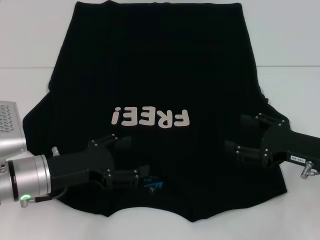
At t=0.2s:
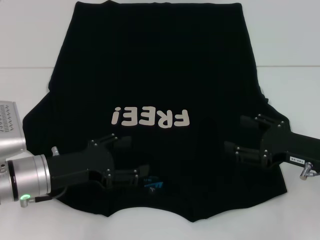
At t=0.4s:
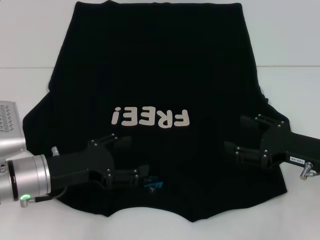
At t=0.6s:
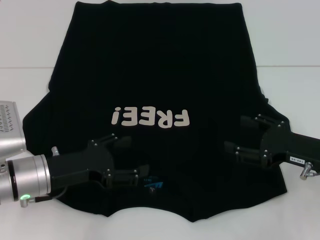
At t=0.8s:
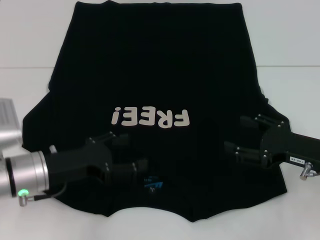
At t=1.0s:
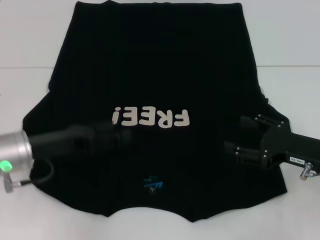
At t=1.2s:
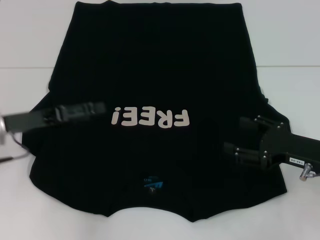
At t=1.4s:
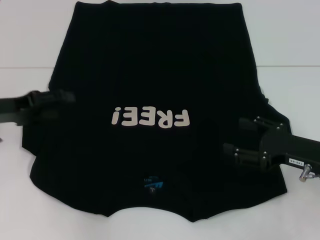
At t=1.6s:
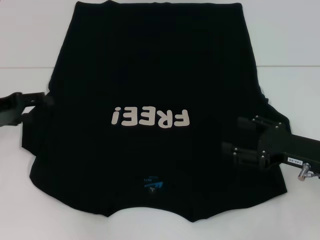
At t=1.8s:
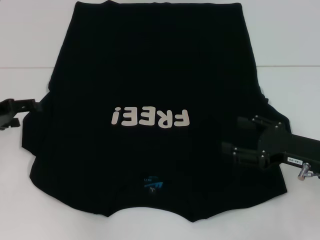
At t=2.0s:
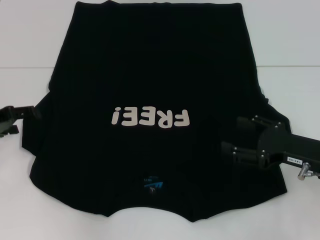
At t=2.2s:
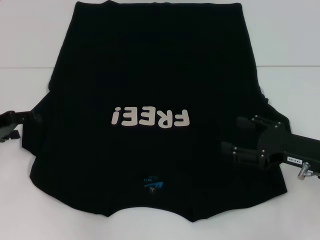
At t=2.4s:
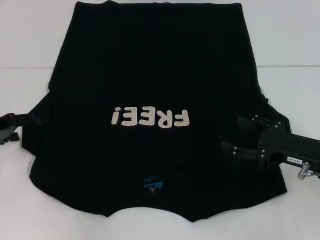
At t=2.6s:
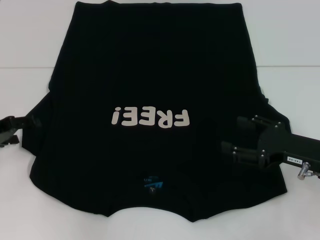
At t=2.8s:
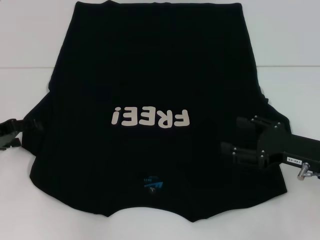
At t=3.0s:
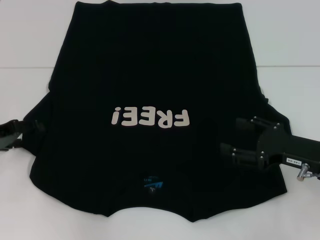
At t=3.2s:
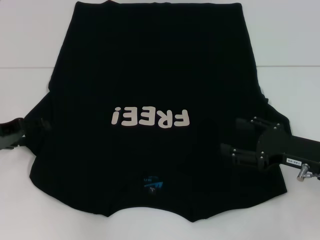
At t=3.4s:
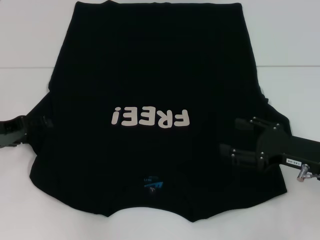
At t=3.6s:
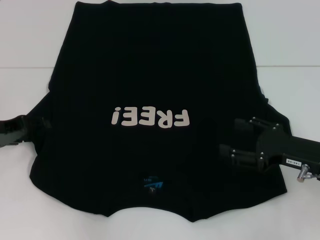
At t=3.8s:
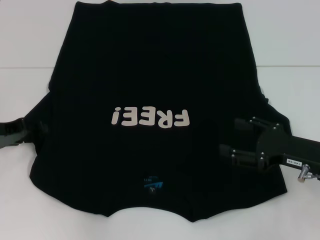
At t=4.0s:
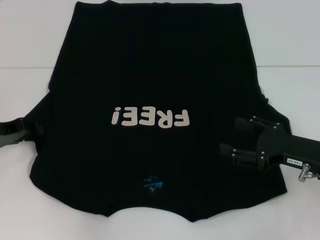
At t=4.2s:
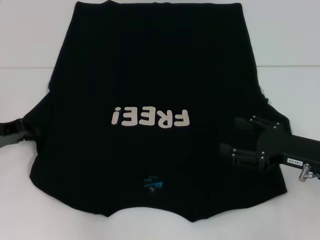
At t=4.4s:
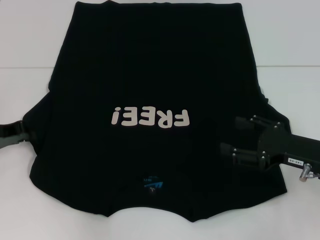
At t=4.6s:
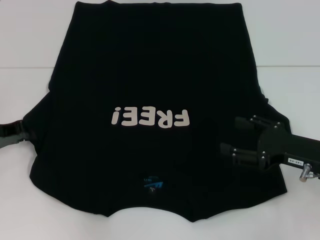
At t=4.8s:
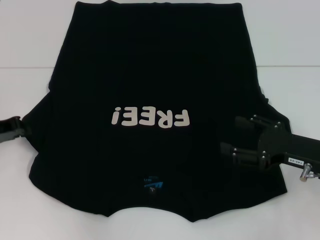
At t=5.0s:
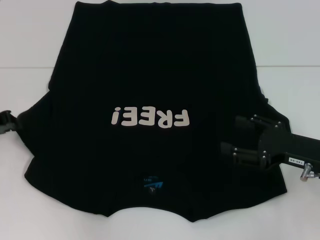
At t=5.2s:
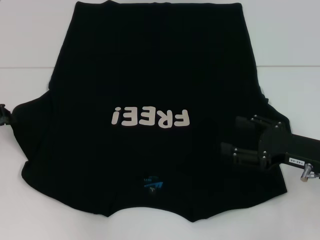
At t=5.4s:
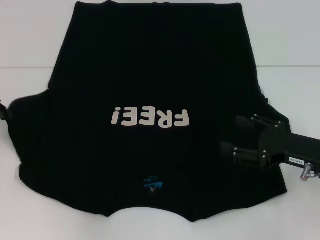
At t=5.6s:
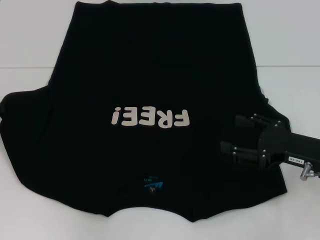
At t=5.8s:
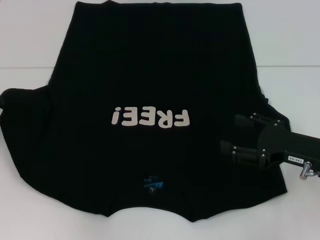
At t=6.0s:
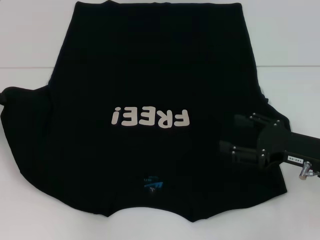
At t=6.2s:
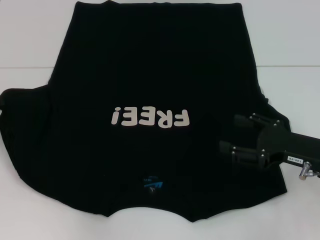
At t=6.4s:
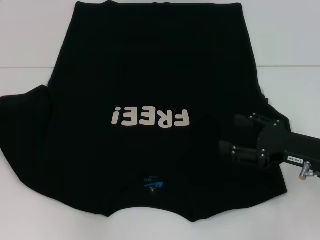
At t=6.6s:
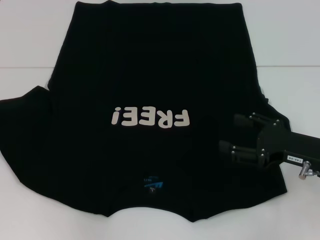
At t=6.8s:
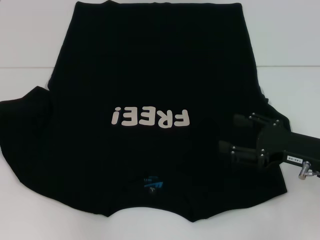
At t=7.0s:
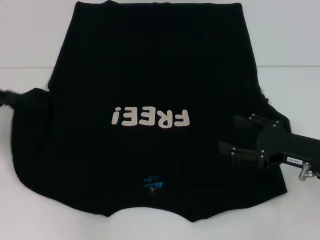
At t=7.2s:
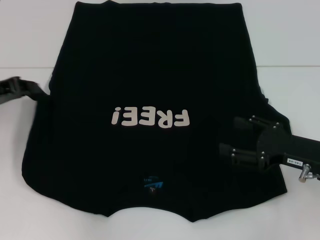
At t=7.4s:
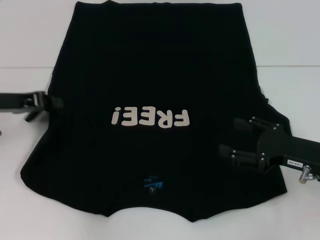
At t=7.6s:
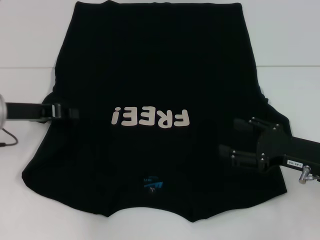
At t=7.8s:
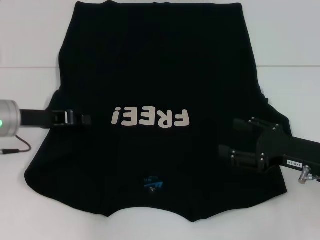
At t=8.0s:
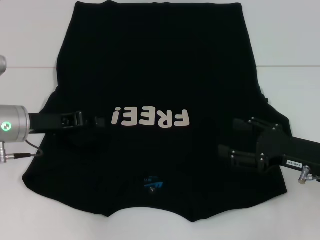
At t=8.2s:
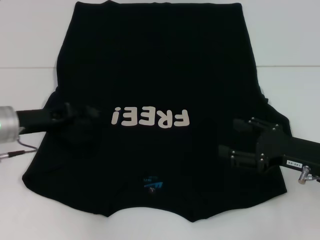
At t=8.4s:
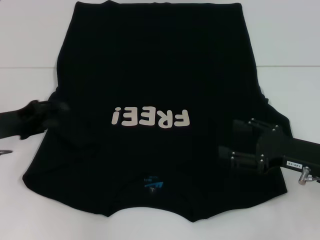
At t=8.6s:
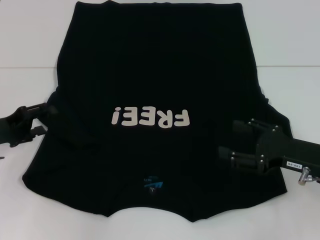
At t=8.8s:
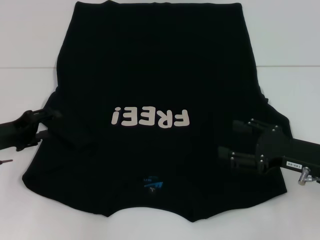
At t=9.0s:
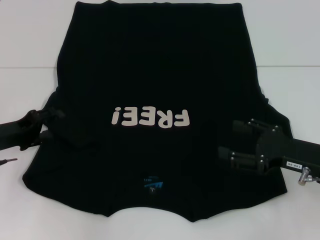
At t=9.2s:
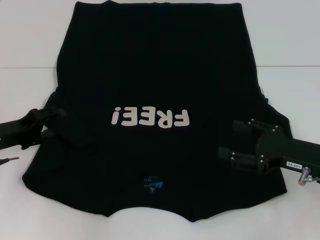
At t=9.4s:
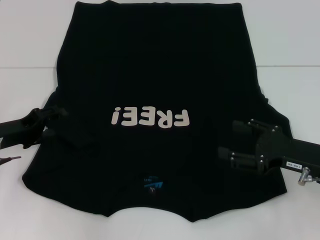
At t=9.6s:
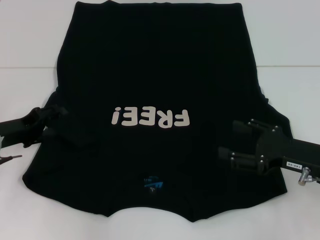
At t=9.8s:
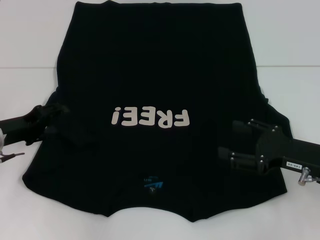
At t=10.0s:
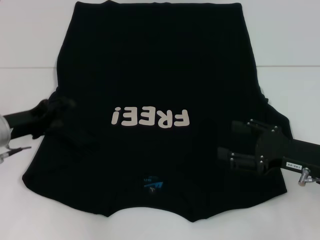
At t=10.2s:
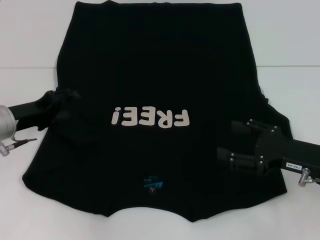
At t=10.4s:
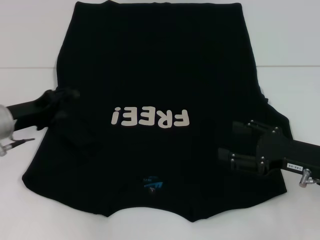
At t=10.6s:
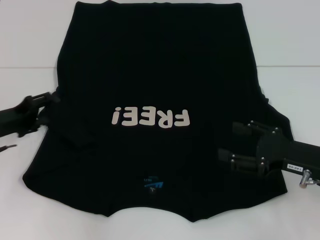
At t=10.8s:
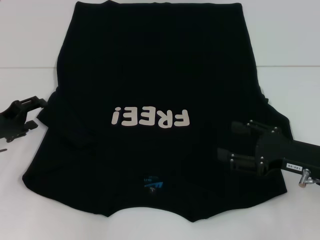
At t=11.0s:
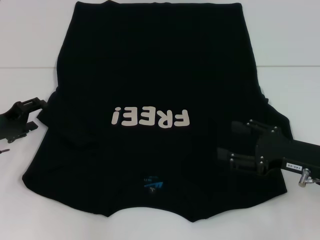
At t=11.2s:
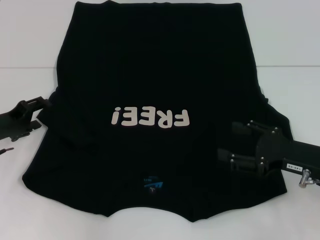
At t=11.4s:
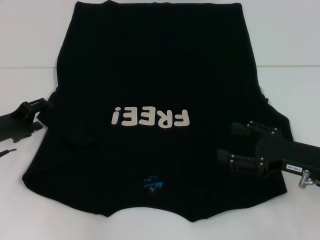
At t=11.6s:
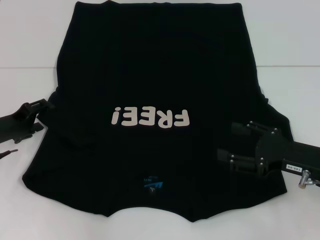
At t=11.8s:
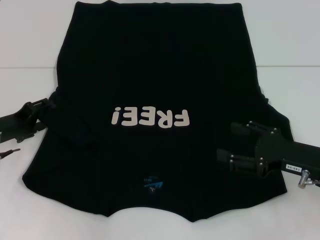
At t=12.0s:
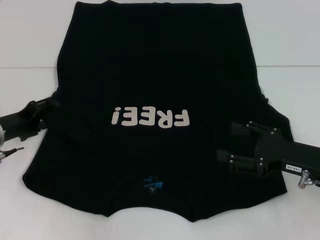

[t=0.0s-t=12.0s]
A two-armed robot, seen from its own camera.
t=0.0s to t=1.6s: The left gripper is displaced to the left, forward and upward by approximately 15 cm.
t=1.6s to t=3.0s: There are only small adjustments of the grippers.
t=3.0s to t=4.4s: The left gripper closes up.
t=4.4s to t=6.0s: The left gripper ends up some 5 cm from where it was.
t=6.0s to t=7.6s: The left gripper travels to the right by approximately 10 cm.
t=7.6s to t=9.0s: The left gripper shifts approximately 5 cm downward, and opens up.
t=9.0s to t=12.0s: The grippers move only a little.

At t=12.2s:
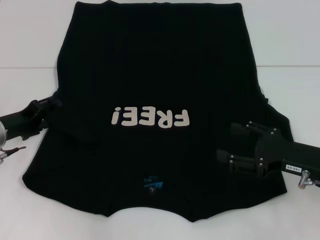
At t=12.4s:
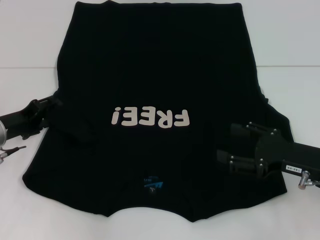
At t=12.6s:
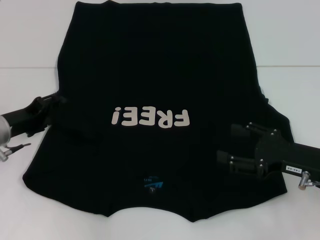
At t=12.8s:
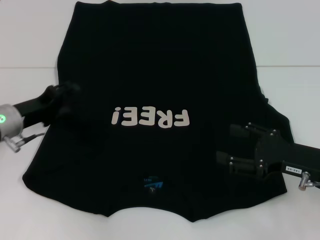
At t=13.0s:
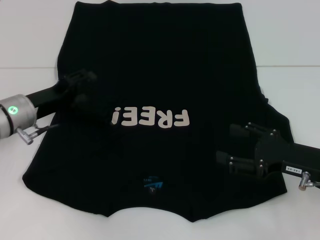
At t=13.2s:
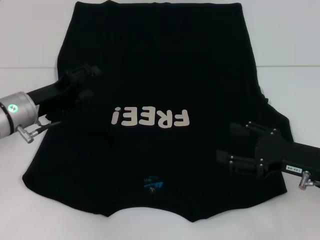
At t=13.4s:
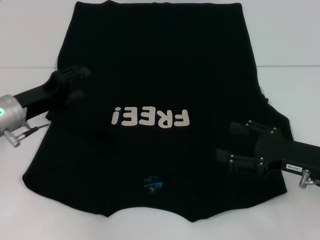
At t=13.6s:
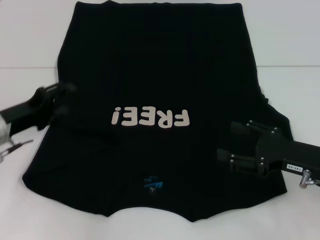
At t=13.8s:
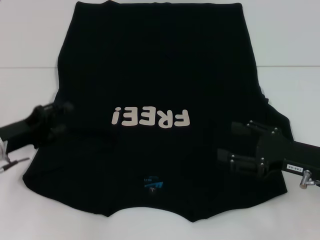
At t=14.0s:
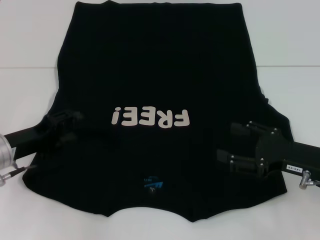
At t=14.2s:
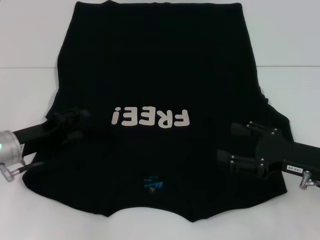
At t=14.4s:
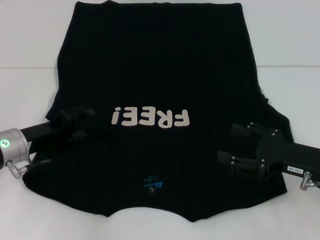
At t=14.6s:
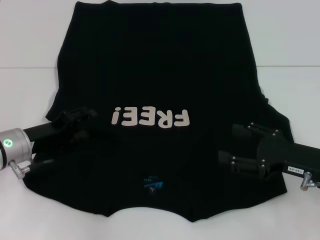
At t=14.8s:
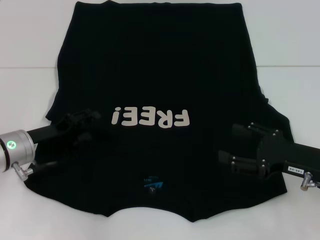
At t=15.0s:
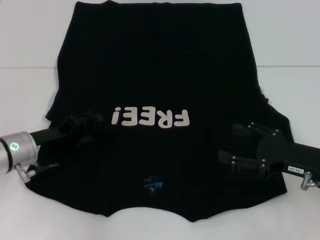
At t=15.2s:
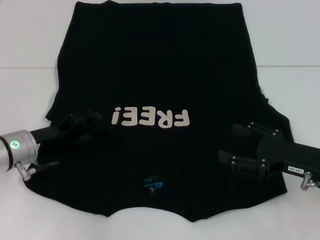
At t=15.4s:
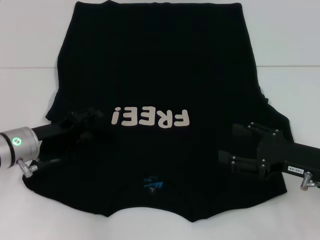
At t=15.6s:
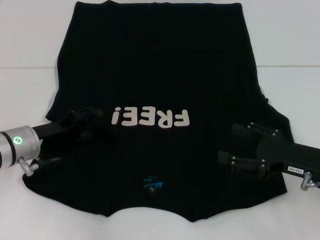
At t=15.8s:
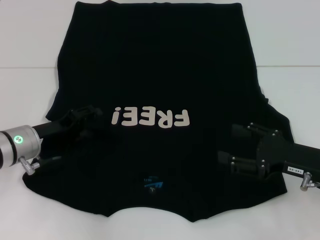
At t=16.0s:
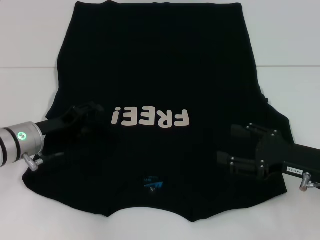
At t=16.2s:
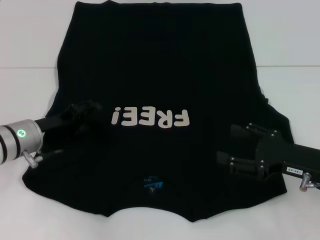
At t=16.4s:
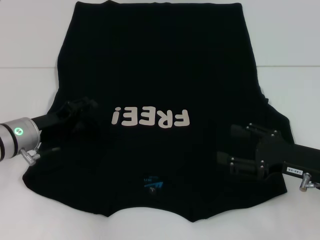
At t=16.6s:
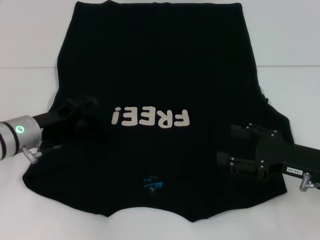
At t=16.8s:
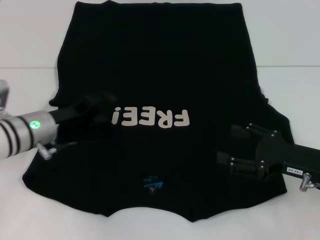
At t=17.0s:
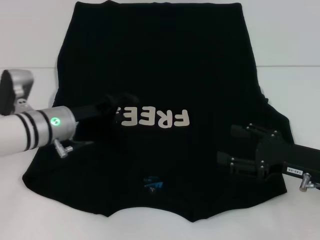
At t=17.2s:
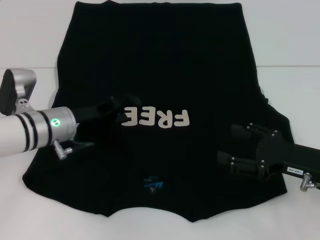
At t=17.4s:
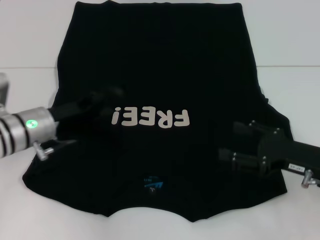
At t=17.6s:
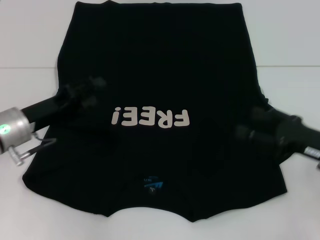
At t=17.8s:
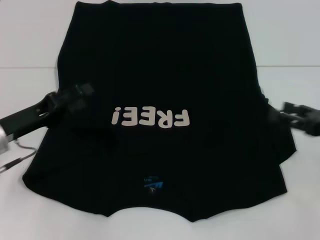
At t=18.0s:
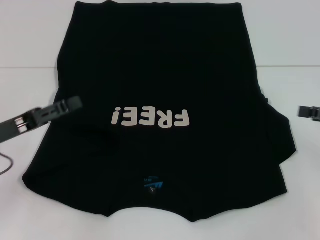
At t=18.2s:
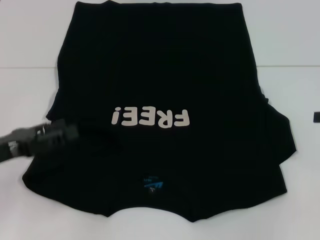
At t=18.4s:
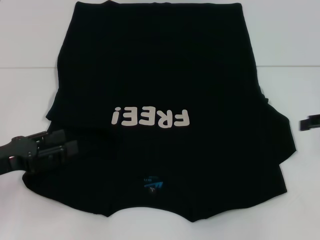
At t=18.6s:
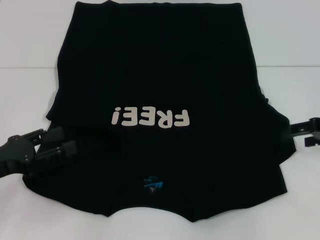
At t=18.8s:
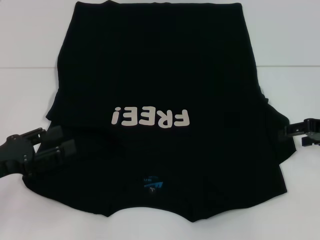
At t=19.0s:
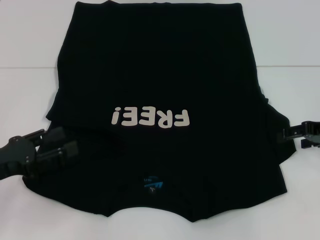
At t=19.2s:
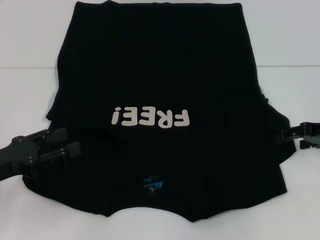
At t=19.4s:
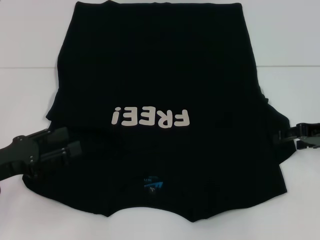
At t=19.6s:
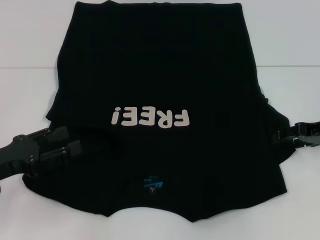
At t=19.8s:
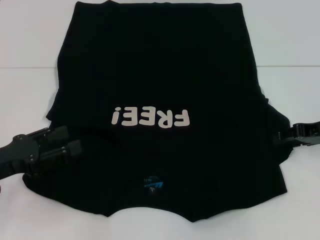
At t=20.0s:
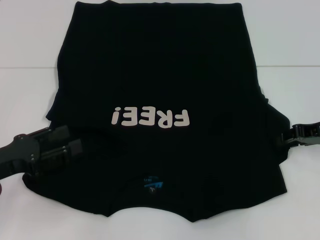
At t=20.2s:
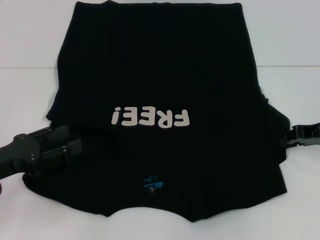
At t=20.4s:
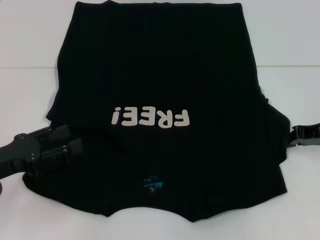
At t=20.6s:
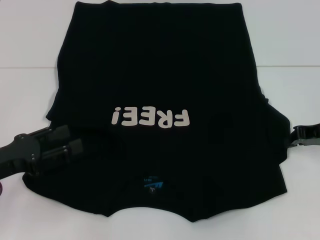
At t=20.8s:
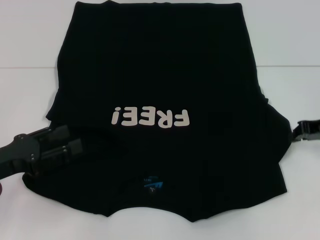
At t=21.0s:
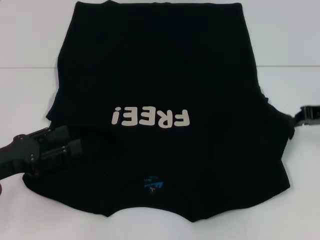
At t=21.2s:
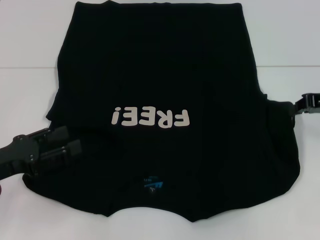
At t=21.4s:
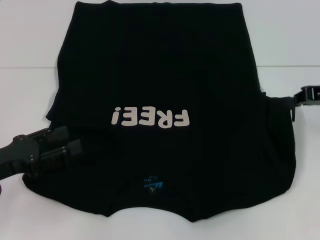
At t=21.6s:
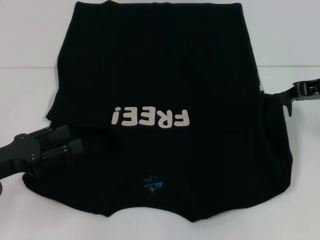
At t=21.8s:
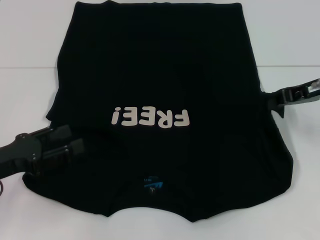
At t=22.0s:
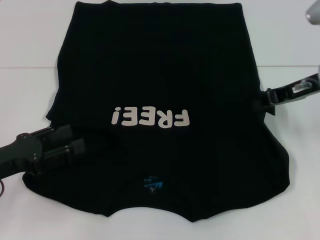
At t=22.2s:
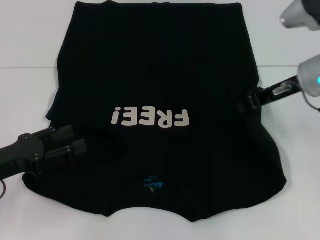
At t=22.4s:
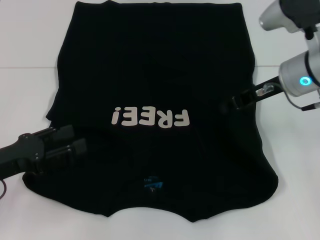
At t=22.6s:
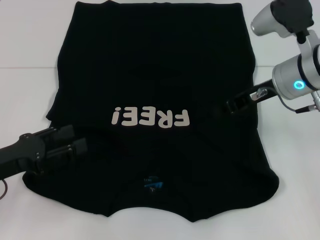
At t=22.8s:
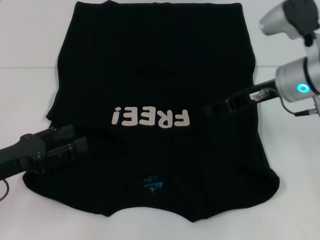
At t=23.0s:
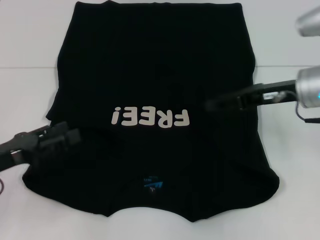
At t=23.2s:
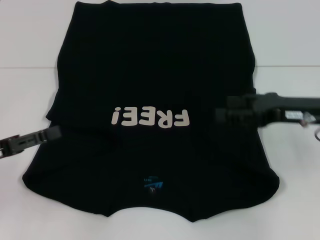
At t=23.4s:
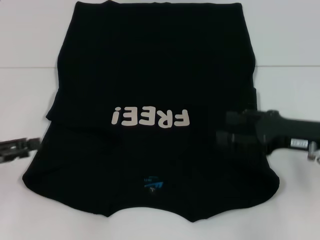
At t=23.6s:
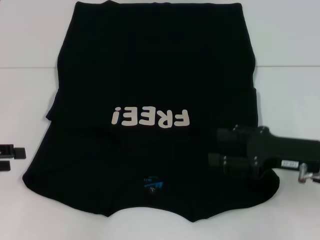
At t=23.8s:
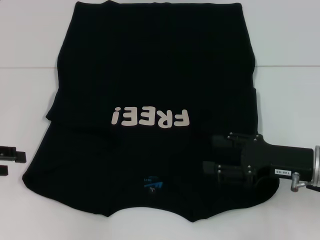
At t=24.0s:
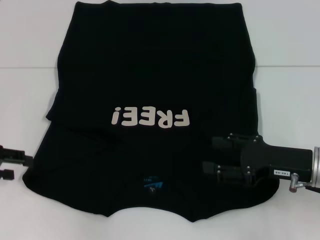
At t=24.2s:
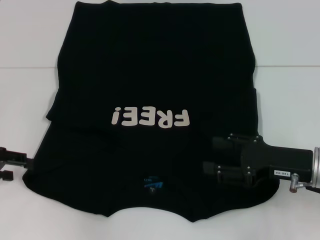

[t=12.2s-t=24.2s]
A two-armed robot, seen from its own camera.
Step, t=12.2s to t=17.8s: Fold the bottom left sleeve with your left hand.
Step, t=18.0s to t=23.2s: Fold the bottom right sleeve with your right hand.
t=12.2s to t=16.6s: The grippers move only a little.
t=16.6s to t=18.2s: The left gripper shifts some 10 cm backward and to the left. The right gripper shifts some 15 cm to the right and upward.
t=18.2s to t=19.8s: The right gripper travels to the left by roughly 5 cm.
t=19.8s to t=21.2s: The right gripper closes.
t=21.2s to t=22.6s: The right gripper shifts about 15 cm to the left.
t=22.6s to t=24.2s: The right gripper heads backward, downward and to the right, covering roughly 15 cm, and opens up. Meanwhile the left gripper moves to the left and forward, approximately 10 cm.
